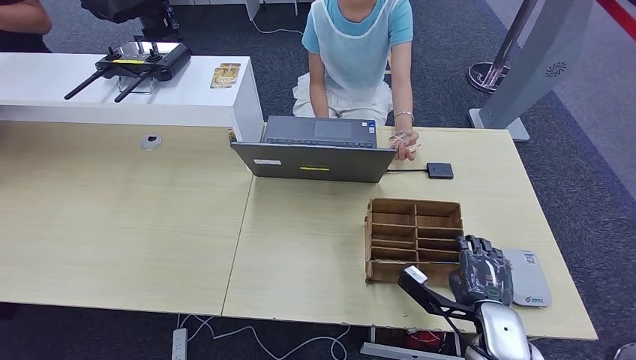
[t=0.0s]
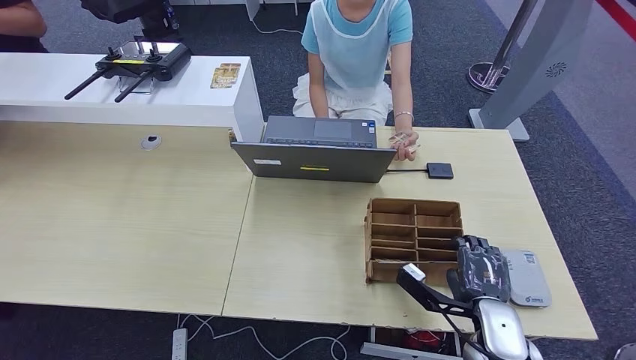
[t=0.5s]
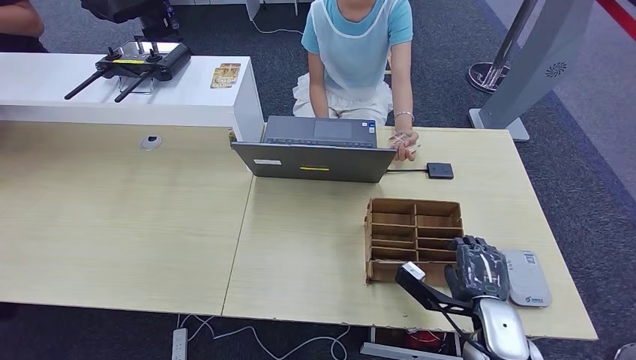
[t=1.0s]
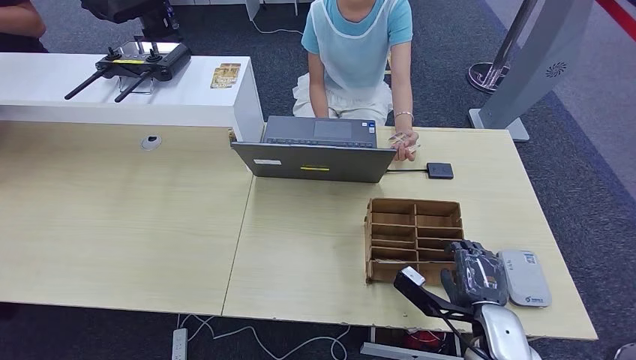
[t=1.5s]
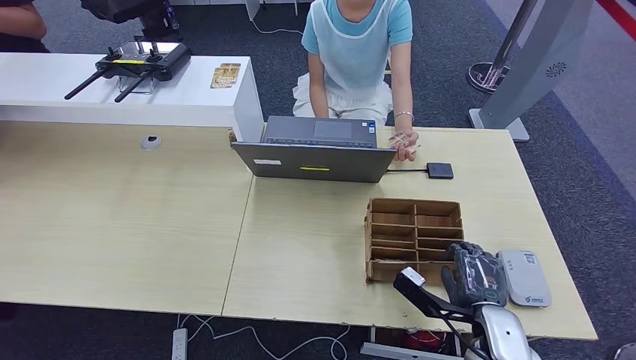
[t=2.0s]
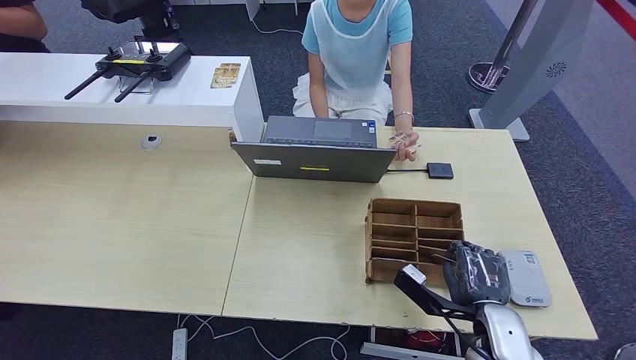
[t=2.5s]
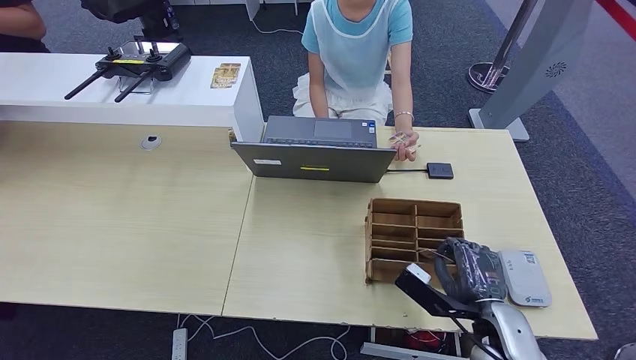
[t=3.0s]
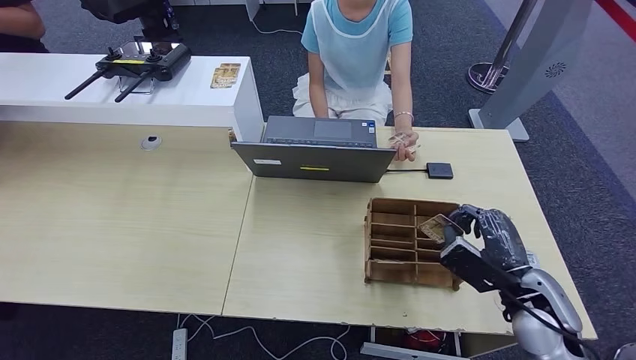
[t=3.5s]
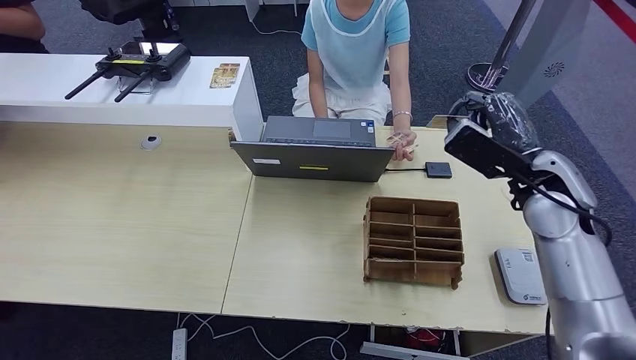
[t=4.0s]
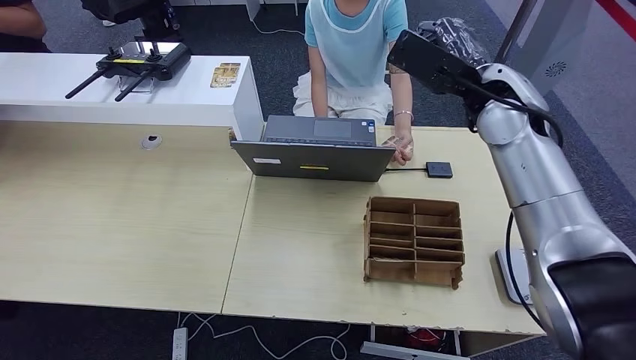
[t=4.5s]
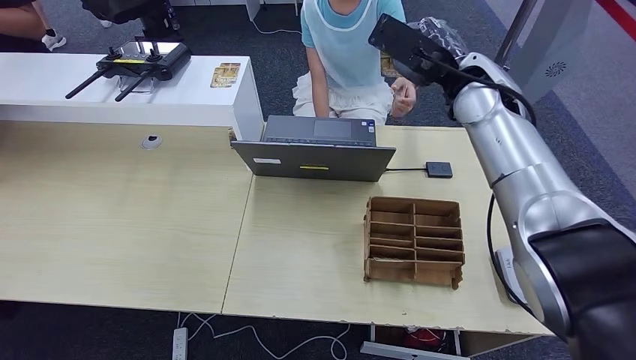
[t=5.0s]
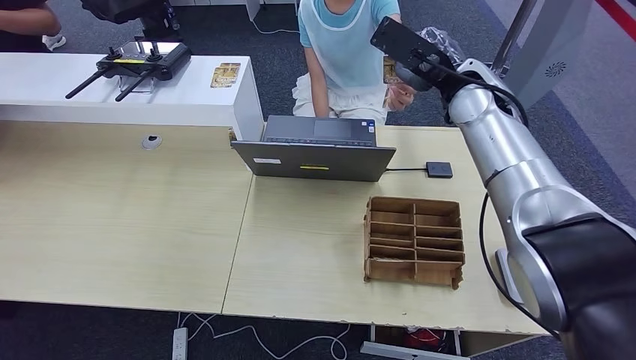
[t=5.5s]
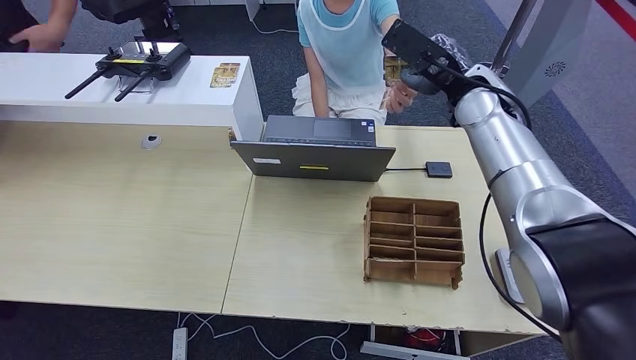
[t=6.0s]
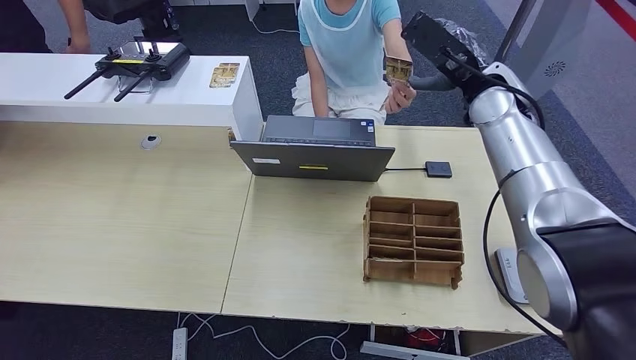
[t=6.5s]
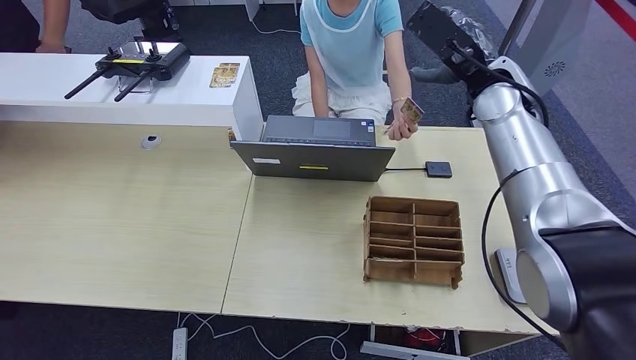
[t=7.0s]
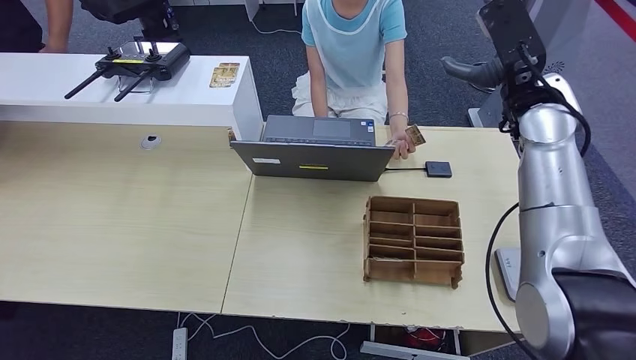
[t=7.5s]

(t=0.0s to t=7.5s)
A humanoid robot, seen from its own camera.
Step, t=0.0s - t=4.0s: Pick up the room key from the key card box.
Step, t=4.5s - t=7.5s: Hand the room key to the person.
t=0.0s - t=2.0s: The hands make only small movements.
t=2.0s - t=4.0s: The right hand travels upward and forward by approximately 25 cm.
t=4.0s - t=5.5s: The right hand goes some 15 cm forward, to the left and upward.
t=5.5s - t=7.5s: The right hand moves to the right, about 5 cm.
